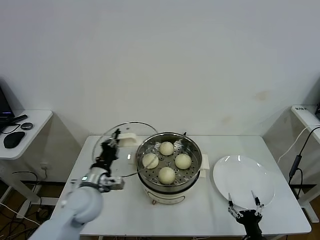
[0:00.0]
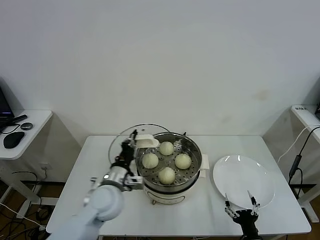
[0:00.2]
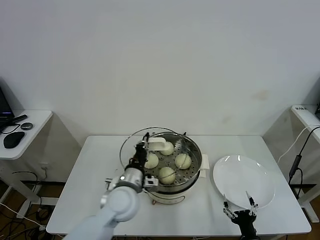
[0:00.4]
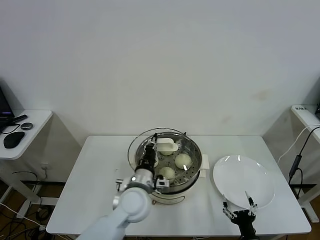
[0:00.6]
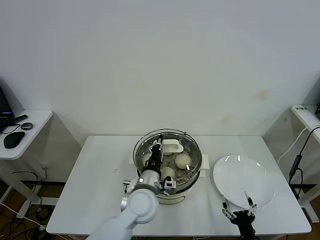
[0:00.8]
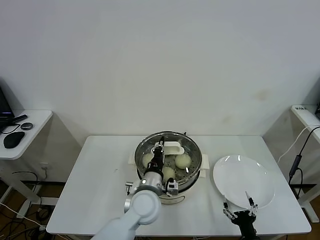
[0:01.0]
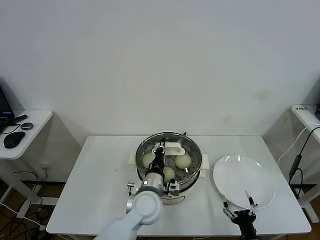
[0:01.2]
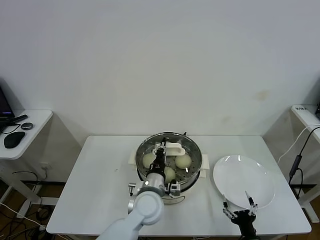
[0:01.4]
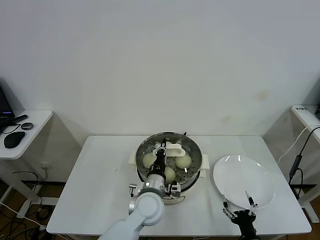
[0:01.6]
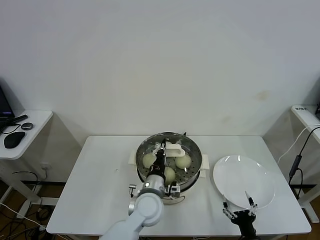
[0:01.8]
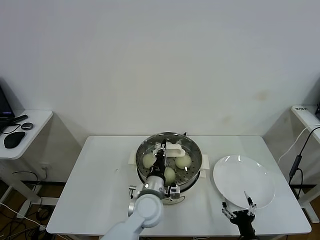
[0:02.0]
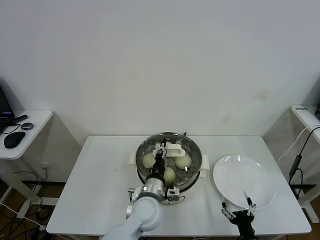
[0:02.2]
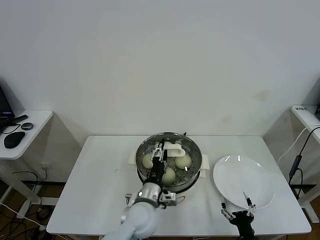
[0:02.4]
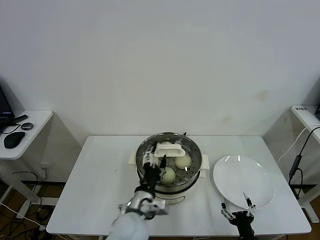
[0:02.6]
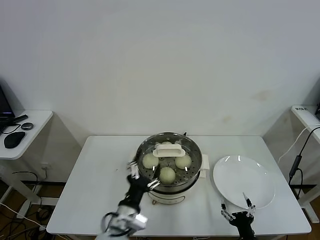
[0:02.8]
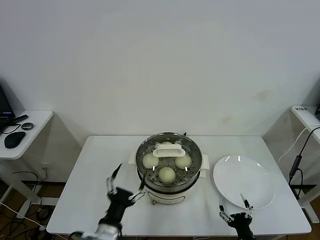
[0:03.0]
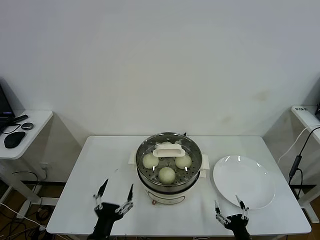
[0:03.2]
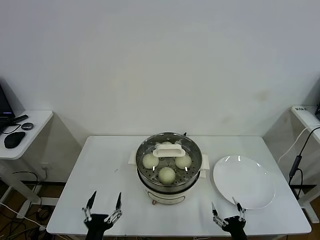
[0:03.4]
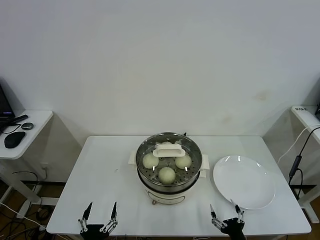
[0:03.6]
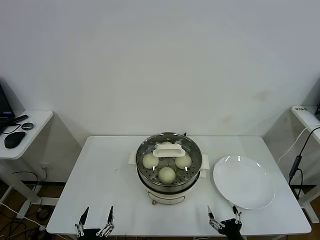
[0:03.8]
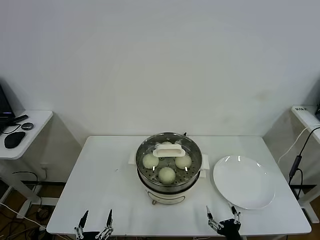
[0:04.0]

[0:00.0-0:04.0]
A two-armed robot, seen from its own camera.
Task of the whole recording: take steamed baozi put them in steamer.
Step, 0:00.0 to 0:02.8: Place the pot lid on the steamer with left gripper.
0:00.0 to 0:01.4: The left gripper travels to the right by roughly 20 cm.
0:01.4 to 0:02.6: The left gripper travels backward by about 5 cm, and opens up.
0:02.6 to 0:04.0: The left gripper moves backward, to the left and downward, approximately 25 cm.

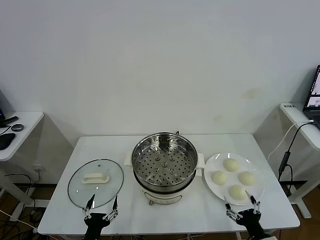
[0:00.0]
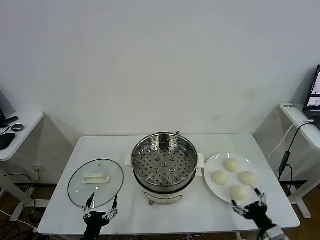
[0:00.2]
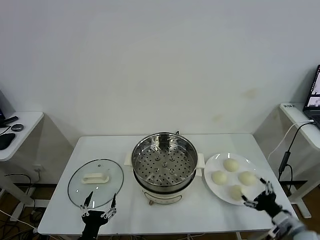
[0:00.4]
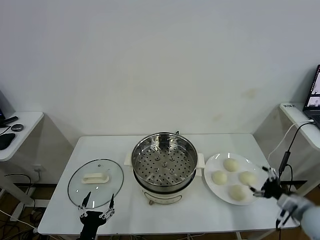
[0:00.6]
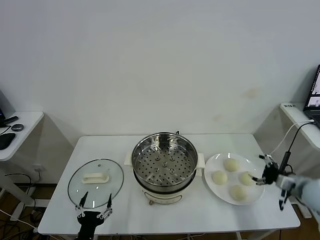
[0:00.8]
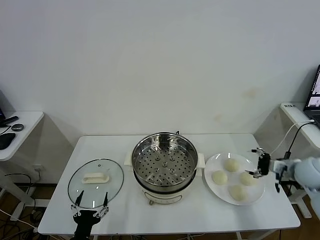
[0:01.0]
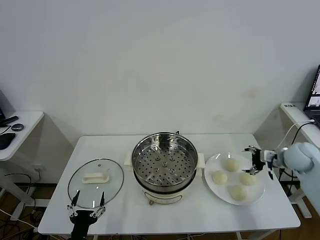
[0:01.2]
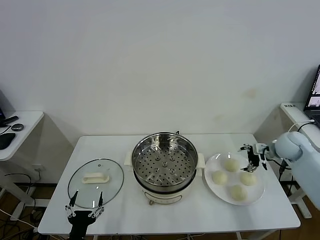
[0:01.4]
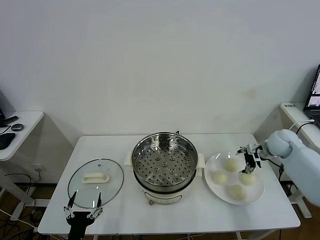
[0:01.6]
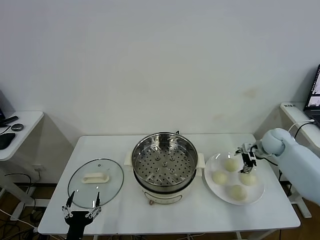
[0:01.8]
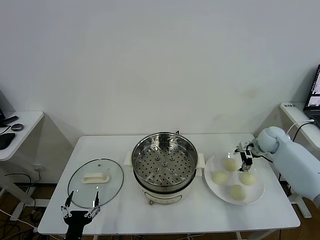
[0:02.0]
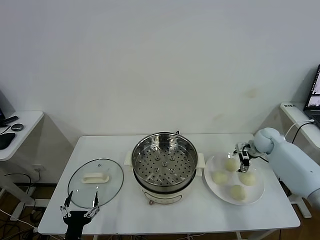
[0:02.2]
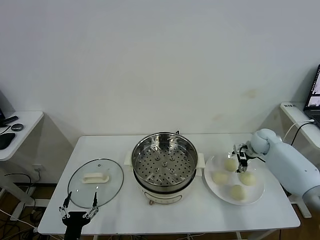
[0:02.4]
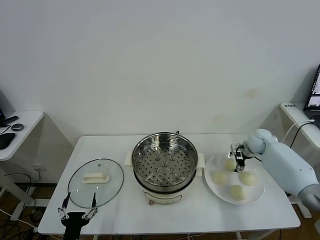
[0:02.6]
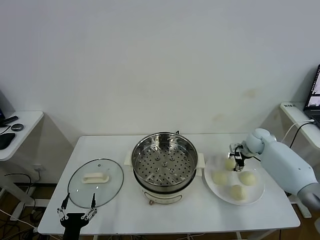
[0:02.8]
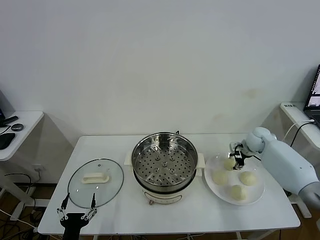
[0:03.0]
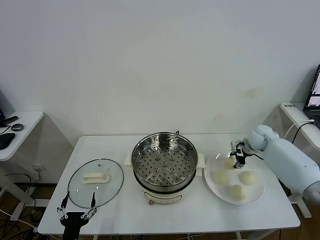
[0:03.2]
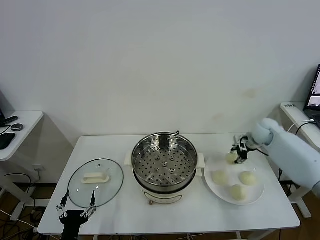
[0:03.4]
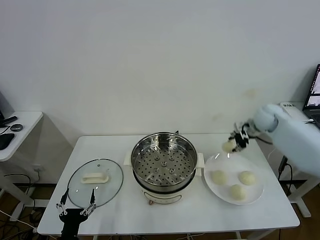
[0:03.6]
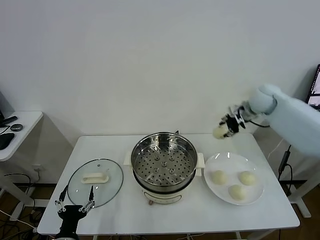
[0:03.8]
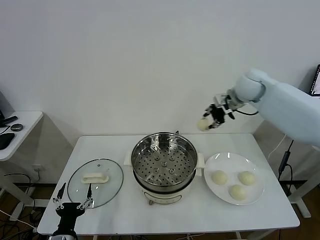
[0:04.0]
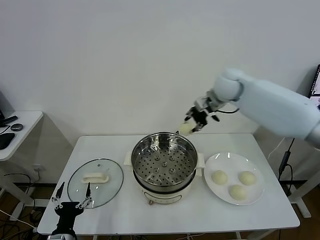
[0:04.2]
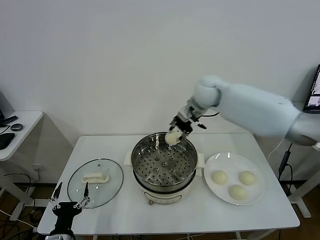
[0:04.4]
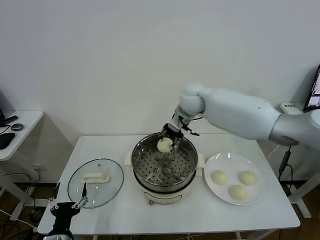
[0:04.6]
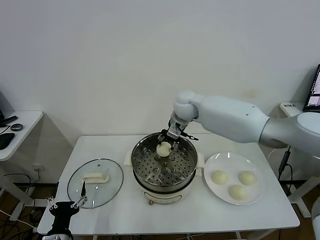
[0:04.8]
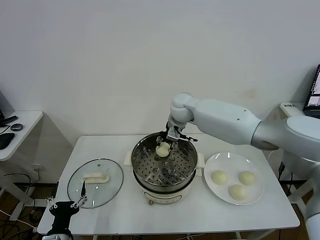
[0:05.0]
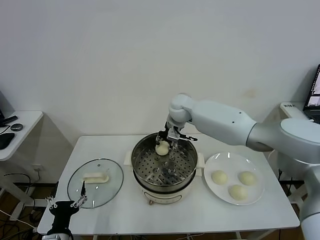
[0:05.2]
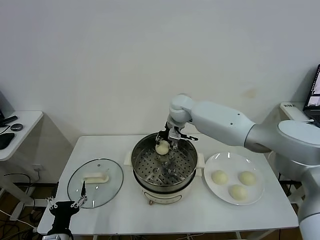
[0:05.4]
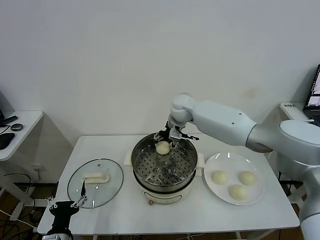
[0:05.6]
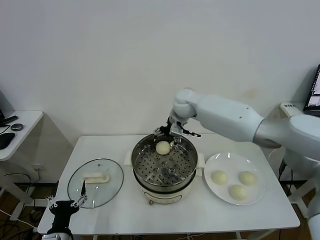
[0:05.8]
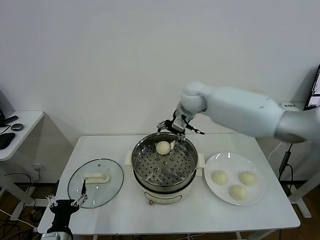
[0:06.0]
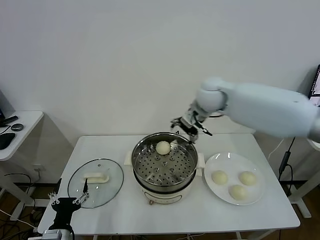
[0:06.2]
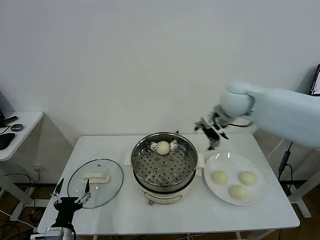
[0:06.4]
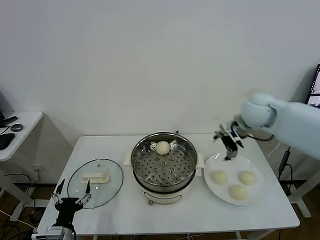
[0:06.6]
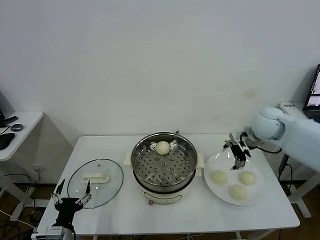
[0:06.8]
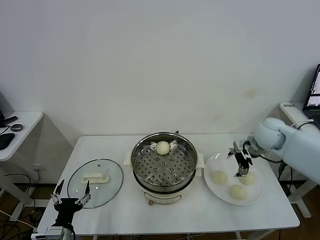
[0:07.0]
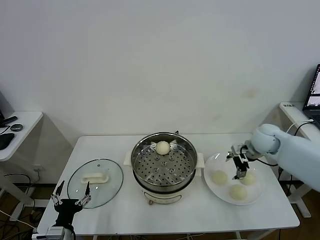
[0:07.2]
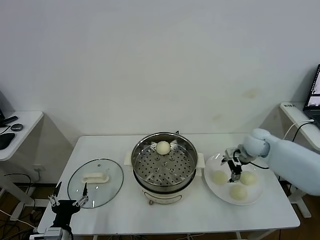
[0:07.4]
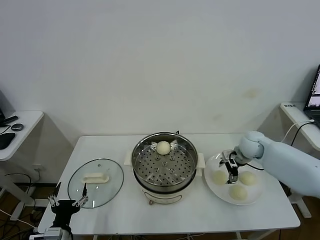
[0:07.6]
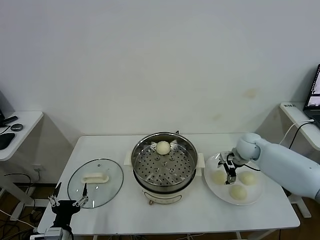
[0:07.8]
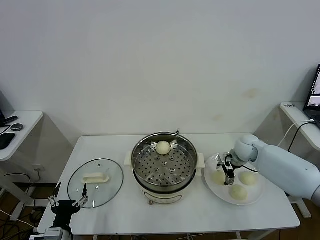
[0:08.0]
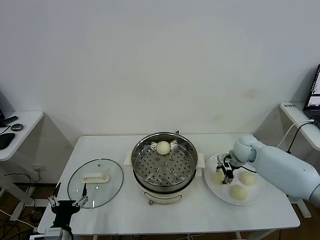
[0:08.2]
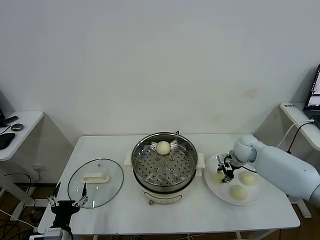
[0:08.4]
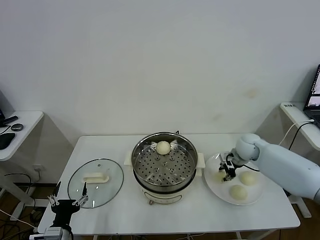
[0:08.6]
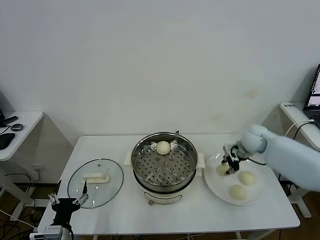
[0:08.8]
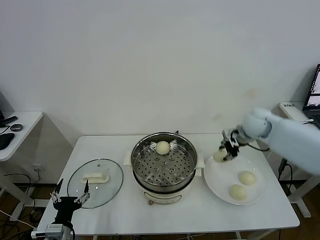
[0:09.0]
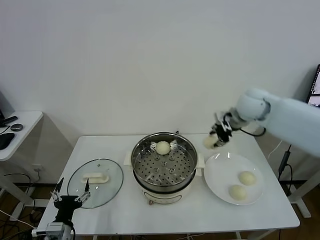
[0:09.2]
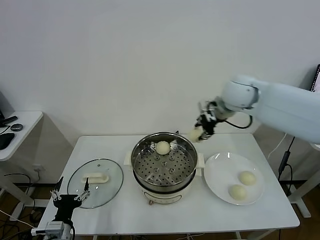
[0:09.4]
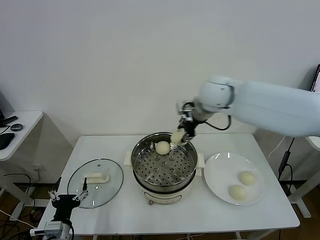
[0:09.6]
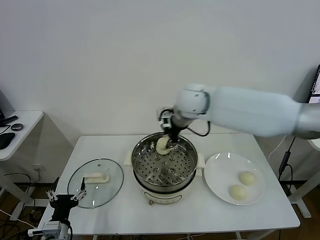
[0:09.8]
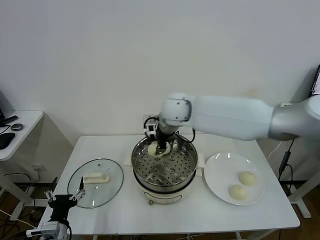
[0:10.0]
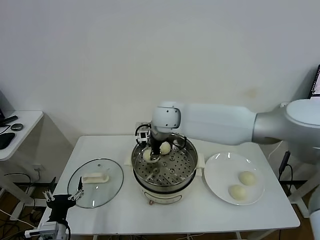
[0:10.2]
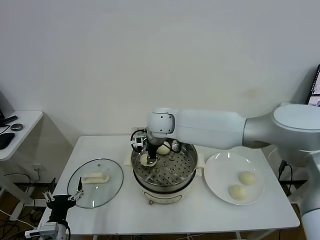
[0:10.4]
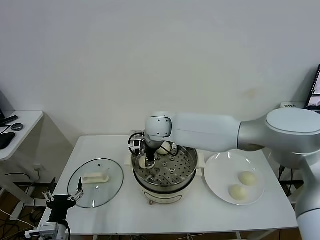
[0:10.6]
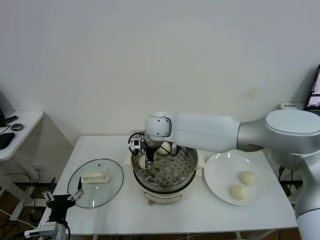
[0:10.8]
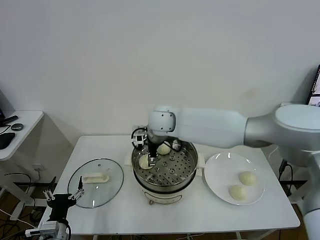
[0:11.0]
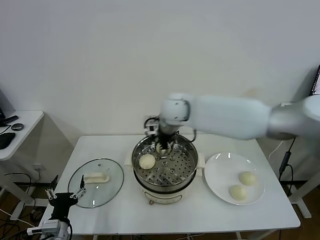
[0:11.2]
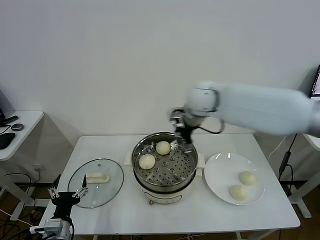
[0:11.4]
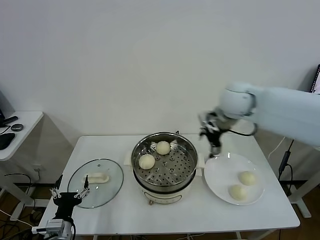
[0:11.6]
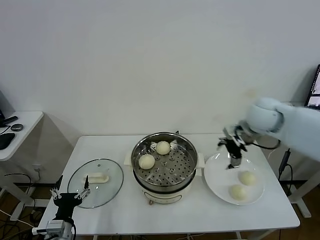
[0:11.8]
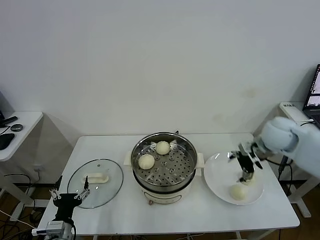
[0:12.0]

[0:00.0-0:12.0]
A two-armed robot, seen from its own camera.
Task of the whole recording: take steamed baozi put them in steamer.
Step, 0:00.0 to 0:02.8: Grasp the baozi in the plate with right gripper.
Step, 0:03.0 to 0:05.6: Place the baozi on the steamer with right gripper.
Step, 0:05.8 to 0:08.4: Grasp the baozi in the plate with right gripper.
Step, 0:08.6 to 0:11.0: Place the baozi on the steamer with right gripper.
0:01.6 to 0:03.0: The right gripper heads forward, covering some 5 cm, and closes up.
0:03.0 to 0:04.4: The right gripper heads to the left and upward, covering about 30 cm.
0:04.4 to 0:06.0: The right gripper moves roughly 10 cm downward and comes back, and opens its fingers.
0:06.0 to 0:07.6: The right gripper shifts about 30 cm to the right and downward.
0:07.6 to 0:09.0: The right gripper travels upward by about 10 cm, and closes.
0:09.0 to 0:10.4: The right gripper goes some 30 cm to the left.
0:10.4 to 0:12.0: The right gripper moves to the right, approximately 35 cm, and opens up.

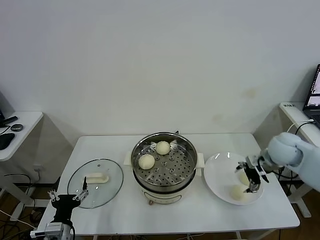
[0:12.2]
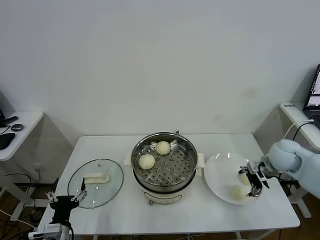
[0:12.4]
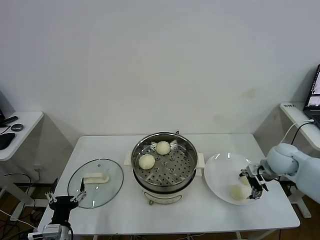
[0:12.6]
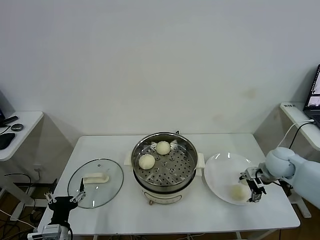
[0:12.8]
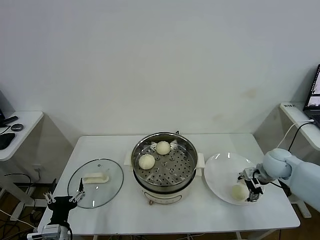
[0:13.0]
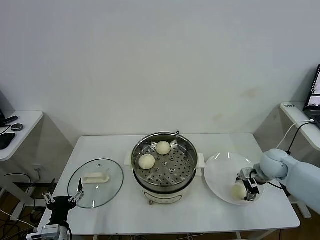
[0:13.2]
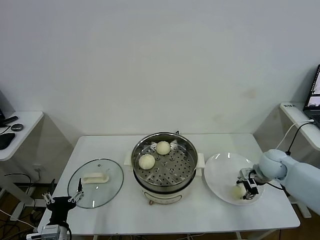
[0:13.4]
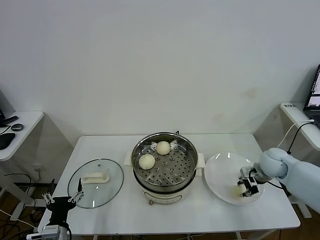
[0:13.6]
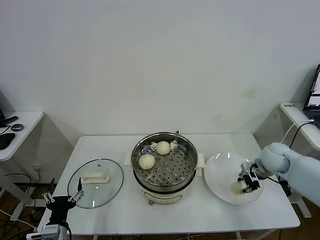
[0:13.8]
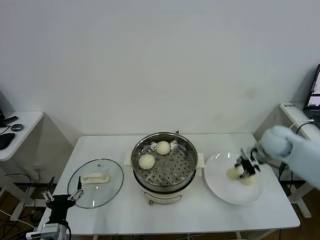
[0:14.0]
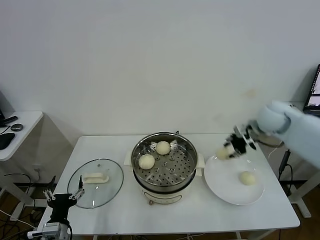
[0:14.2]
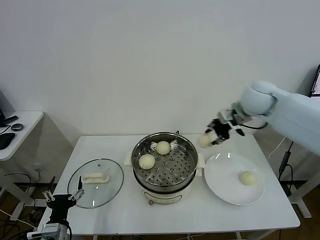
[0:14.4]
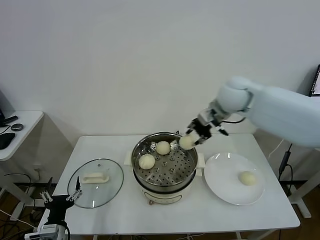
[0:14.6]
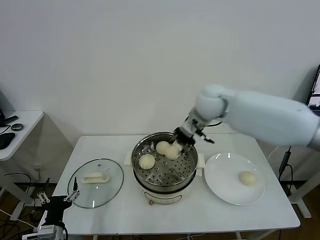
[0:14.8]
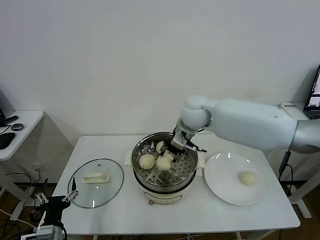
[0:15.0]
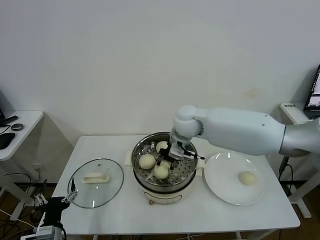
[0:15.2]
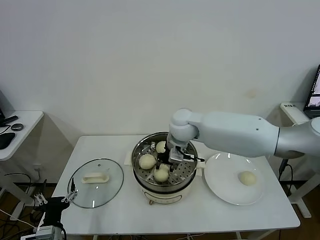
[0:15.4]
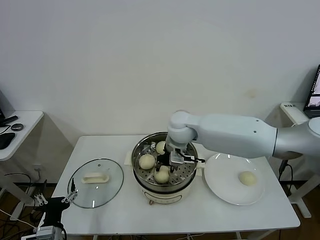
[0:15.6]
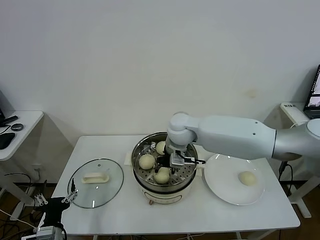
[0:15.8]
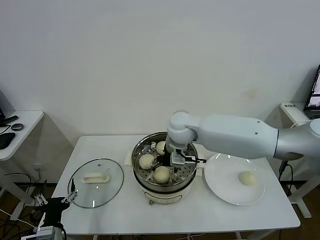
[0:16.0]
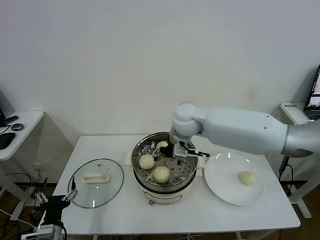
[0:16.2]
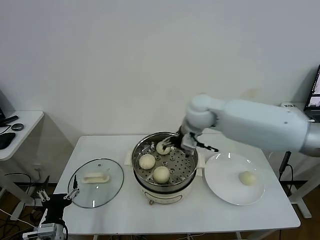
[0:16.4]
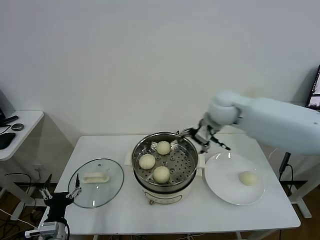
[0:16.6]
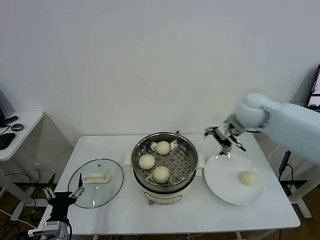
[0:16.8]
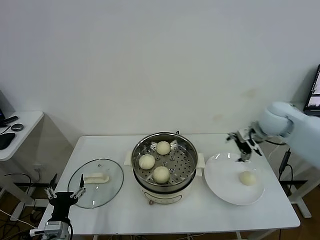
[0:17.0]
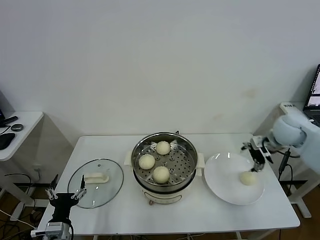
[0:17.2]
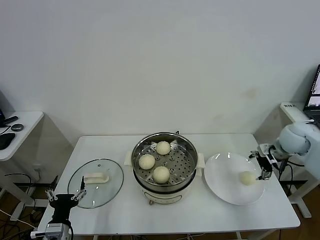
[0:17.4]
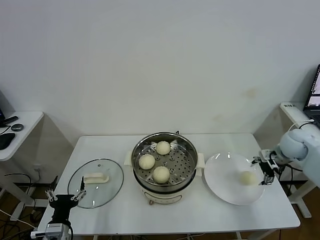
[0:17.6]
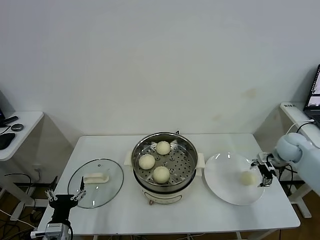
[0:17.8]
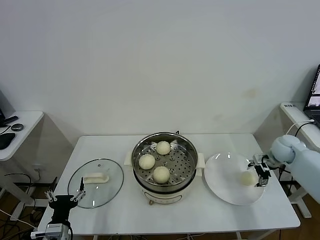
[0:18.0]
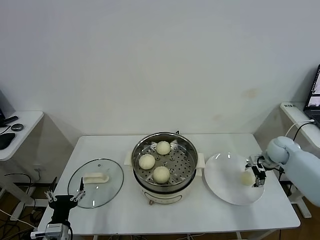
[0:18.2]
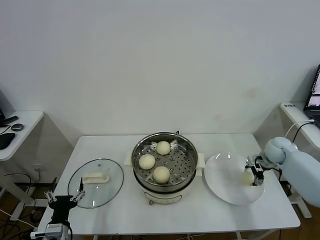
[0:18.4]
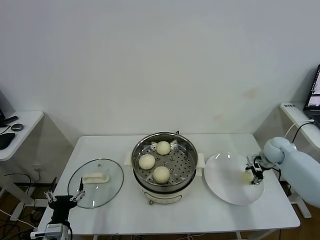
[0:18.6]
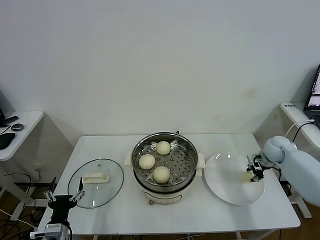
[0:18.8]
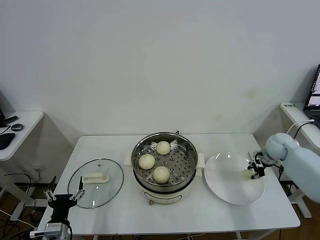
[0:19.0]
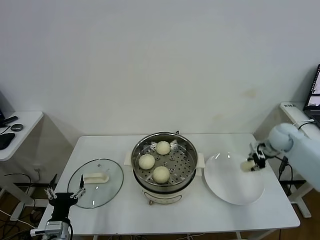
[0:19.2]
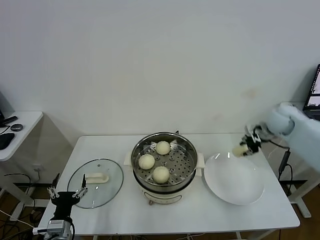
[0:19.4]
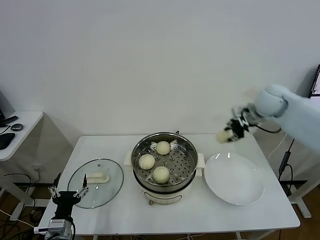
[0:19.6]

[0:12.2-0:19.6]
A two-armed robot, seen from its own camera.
Task of the whole recording: take steamed baozi put them in steamer.
Step, 0:12.2 to 0:13.4: Grasp the baozi in the plate with right gripper.
Step, 0:13.6 to 0:16.0: Place the baozi on the steamer with right gripper.
Step, 0:16.2 to 0:18.6: Grasp the baozi in the plate with right gripper.
0:12.2 to 0:13.6: The right gripper moves downward, roughly 10 cm, and closes.
0:13.6 to 0:15.2: The right gripper goes approximately 35 cm to the left and upward.
0:15.2 to 0:16.6: The right gripper goes roughly 10 cm to the right, and opens.
0:16.6 to 0:18.2: The right gripper shifts roughly 35 cm to the right and downward.
0:18.2 to 0:19.6: The right gripper shifts approximately 25 cm upward and to the left, and closes its fingers.
